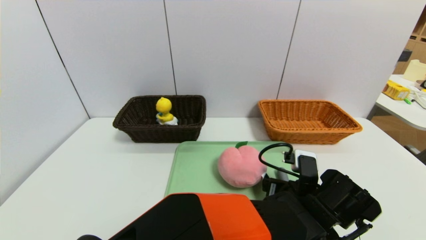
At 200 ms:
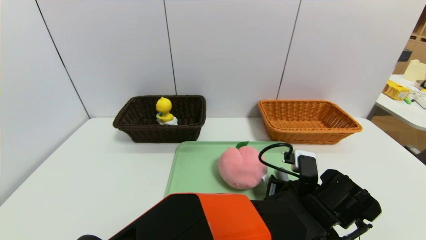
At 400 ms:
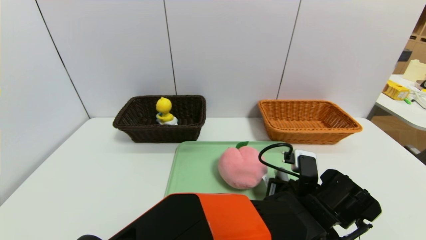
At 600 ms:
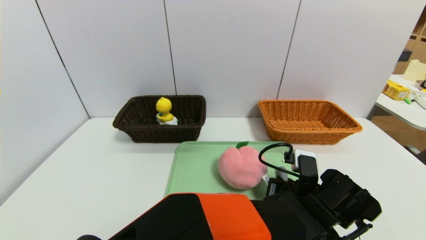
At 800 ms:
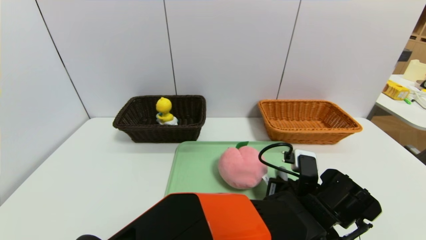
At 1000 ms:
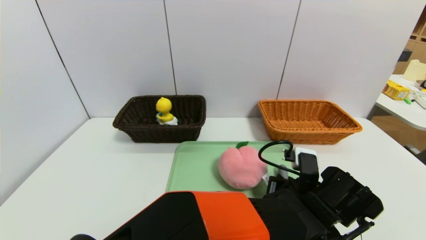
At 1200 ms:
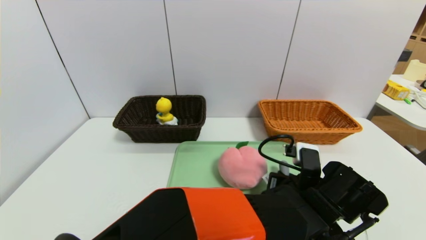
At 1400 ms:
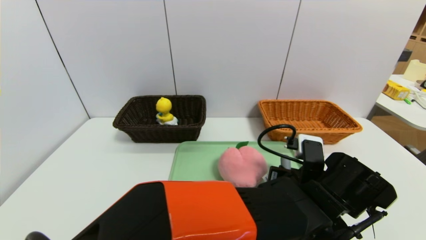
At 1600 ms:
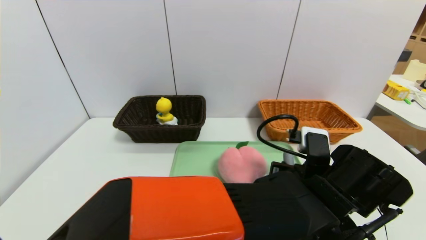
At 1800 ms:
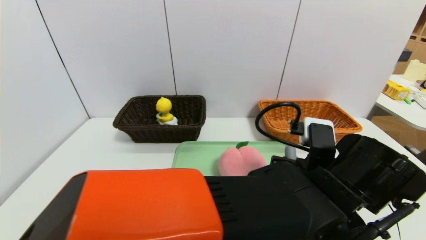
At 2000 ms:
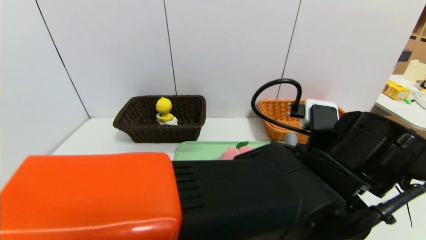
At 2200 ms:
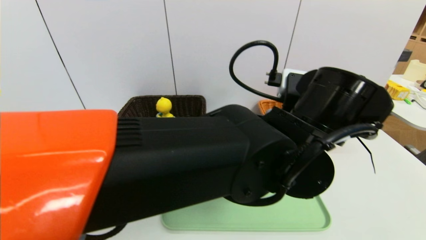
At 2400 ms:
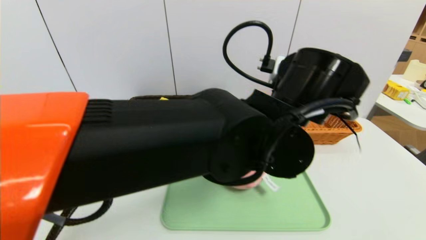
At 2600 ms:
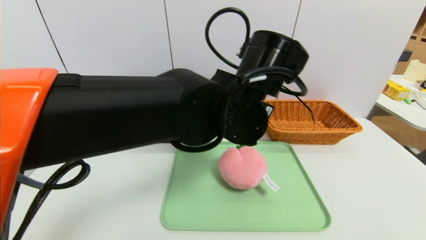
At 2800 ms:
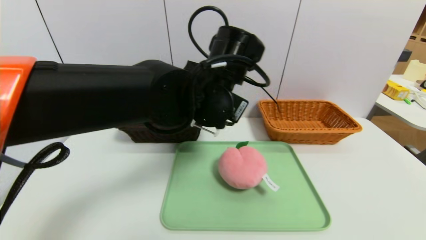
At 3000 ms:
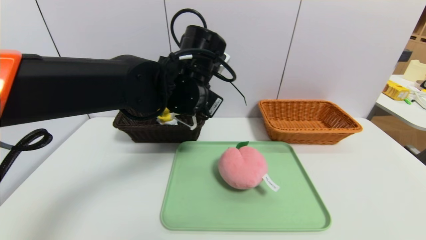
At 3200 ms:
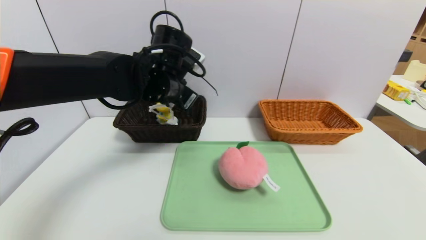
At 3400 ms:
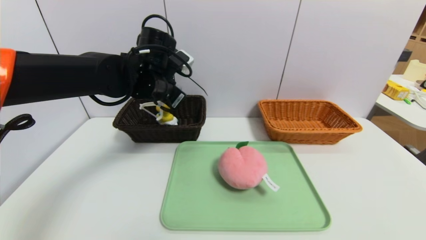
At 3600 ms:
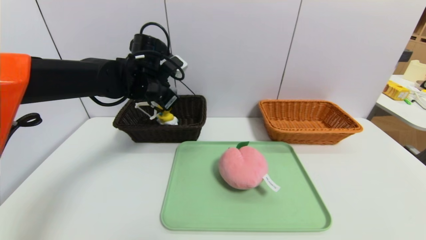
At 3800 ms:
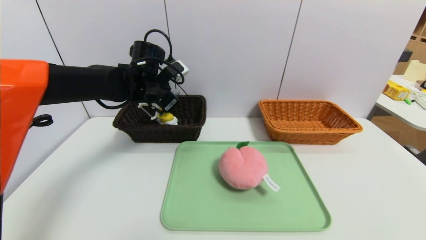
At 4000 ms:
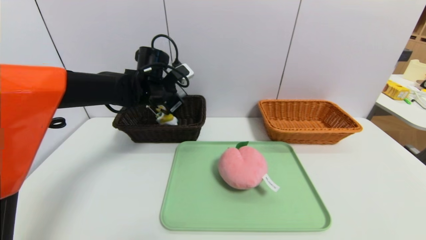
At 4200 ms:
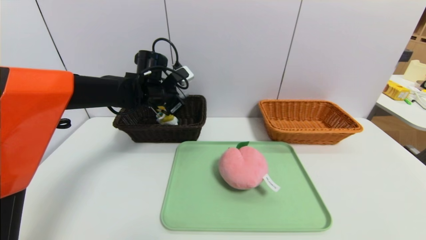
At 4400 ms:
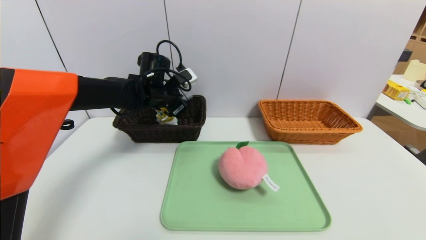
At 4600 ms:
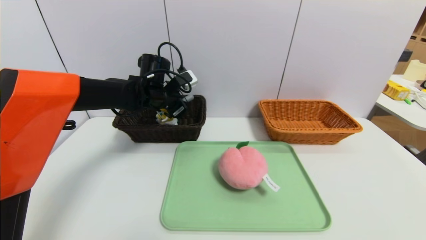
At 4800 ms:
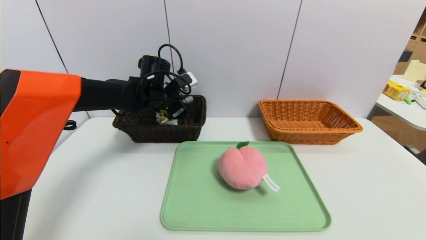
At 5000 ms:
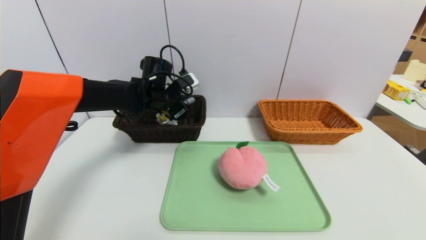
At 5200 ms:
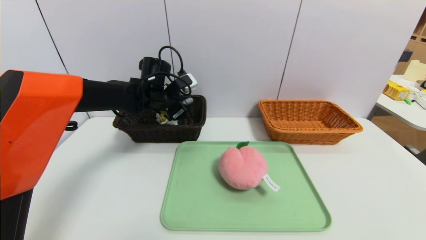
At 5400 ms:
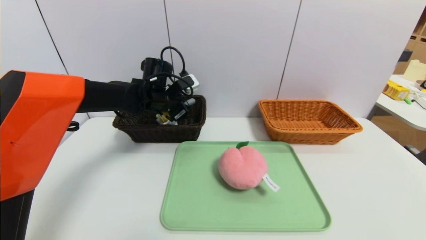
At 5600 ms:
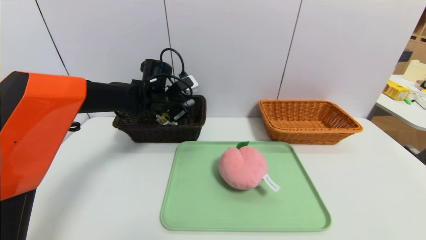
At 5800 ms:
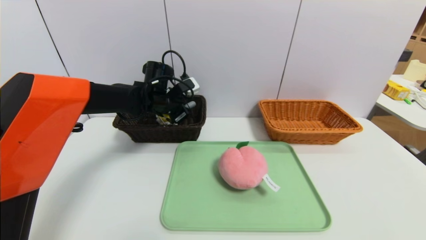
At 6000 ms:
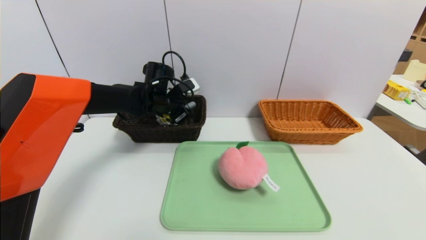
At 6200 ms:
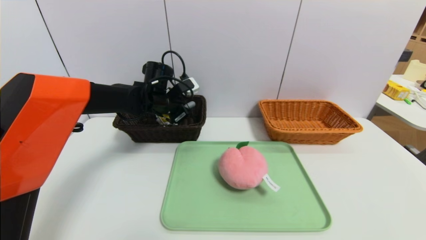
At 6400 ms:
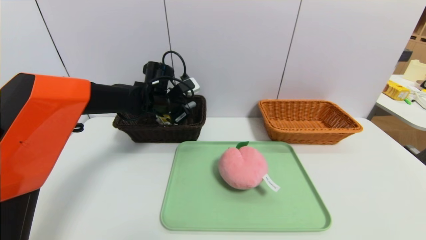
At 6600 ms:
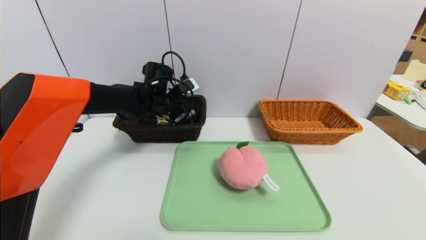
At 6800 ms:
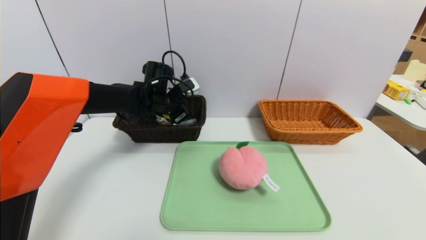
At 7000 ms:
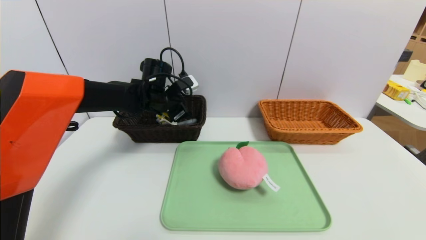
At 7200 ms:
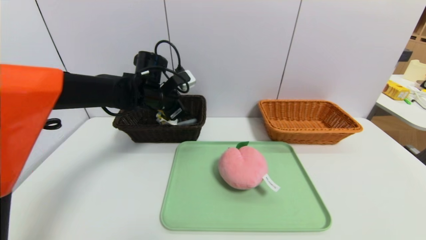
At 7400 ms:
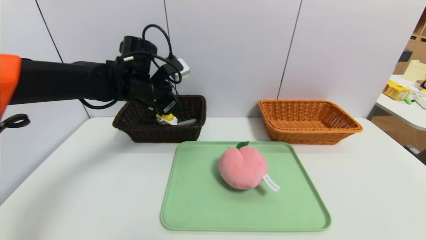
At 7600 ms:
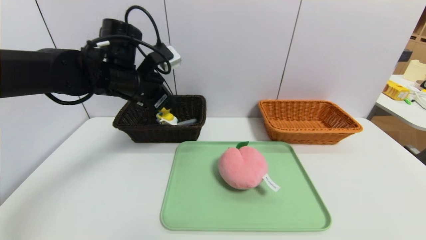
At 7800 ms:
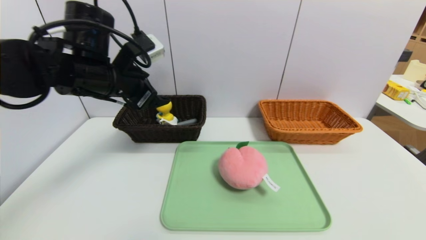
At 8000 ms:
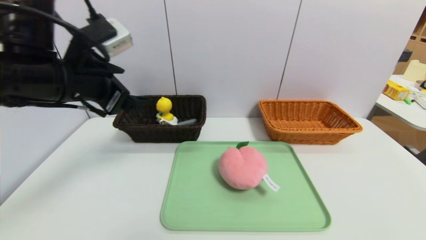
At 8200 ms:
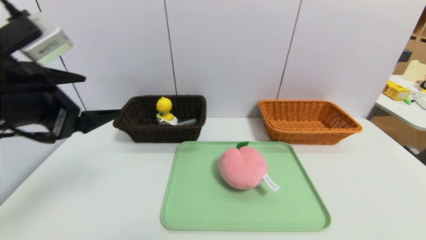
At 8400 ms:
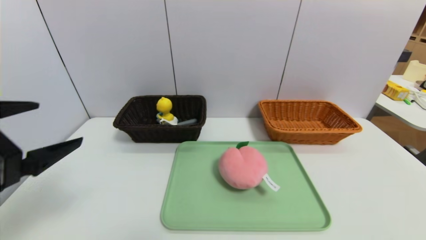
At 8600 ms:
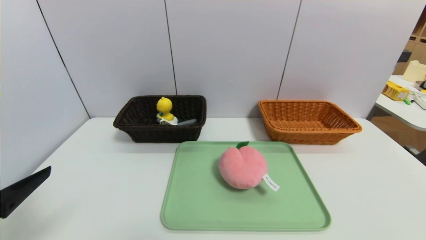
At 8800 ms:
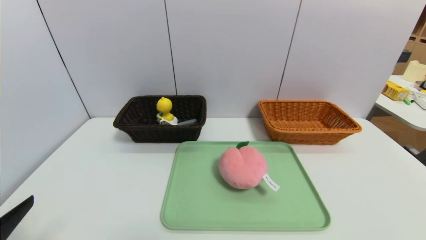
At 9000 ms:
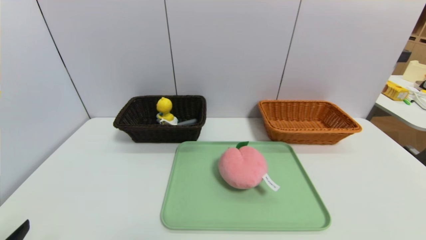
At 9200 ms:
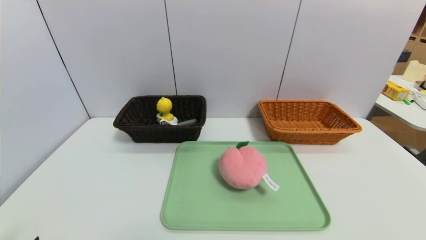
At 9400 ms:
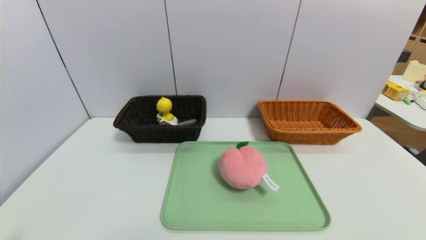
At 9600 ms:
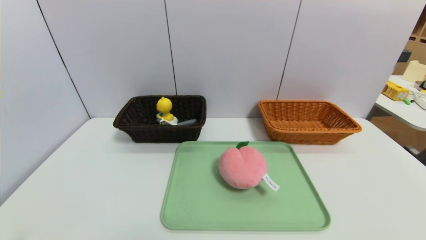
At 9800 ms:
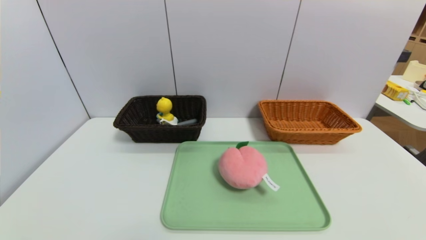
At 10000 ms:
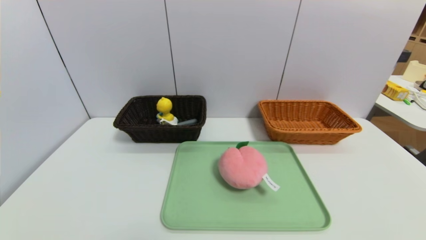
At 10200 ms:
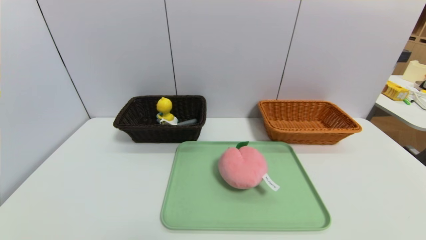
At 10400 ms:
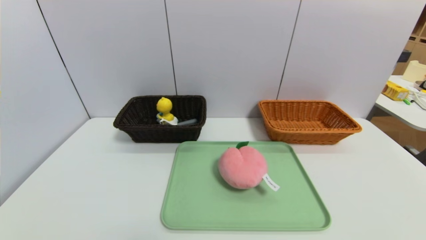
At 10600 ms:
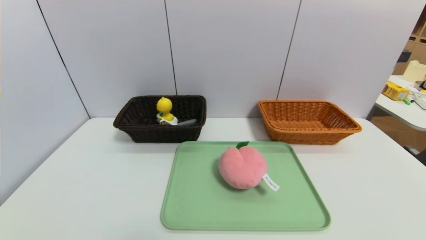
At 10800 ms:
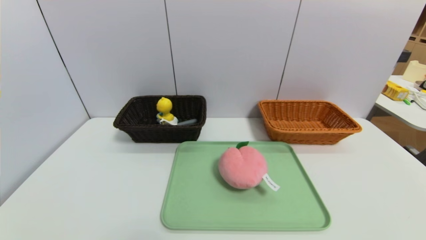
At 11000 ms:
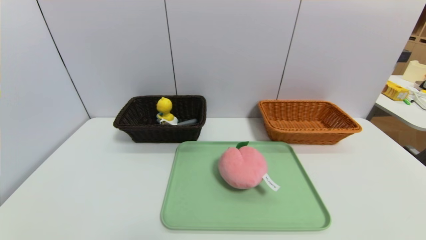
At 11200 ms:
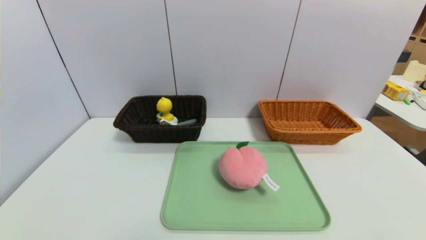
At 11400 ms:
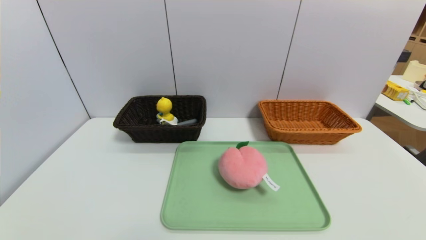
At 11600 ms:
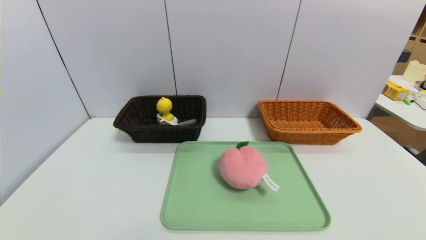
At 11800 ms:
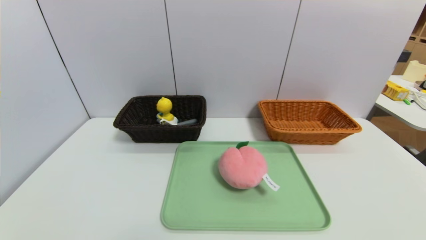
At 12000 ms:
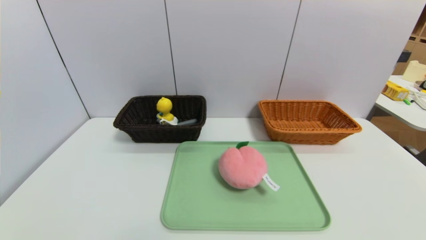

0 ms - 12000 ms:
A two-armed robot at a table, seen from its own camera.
Task of the whole recording: place the food in the right basket with the right gripper, and place the non food items in the left basket with the left gripper.
Step, 0 ms - 7000 ms: Grasp the peeler and put it in the left basket.
0 ms - 1600 ms: The left gripper is displaced upward by approximately 5 cm, and closes its fingers.
1600 ms - 3000 ms: The left gripper heads to the left, forward and upward, covering approximately 25 cm.
3000 ms - 4400 ms: The left gripper goes approximately 15 cm forward, to the left and downward.
4400 ms - 6000 ms: The grippers make only small movements.
6000 ms - 7600 ms: The left gripper moves backward and upward, about 15 cm, and opens.
7600 ms - 9000 ms: The left gripper shifts about 35 cm backward.

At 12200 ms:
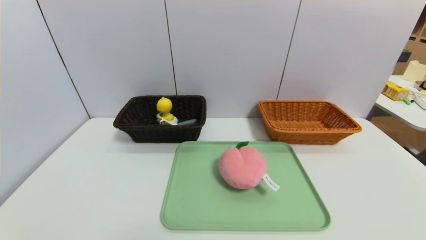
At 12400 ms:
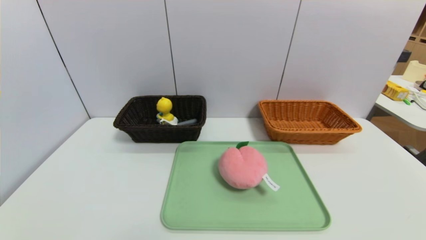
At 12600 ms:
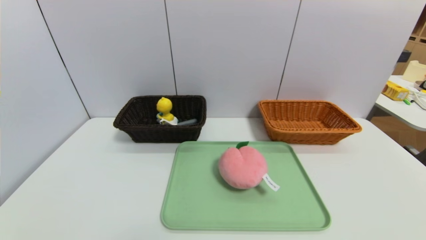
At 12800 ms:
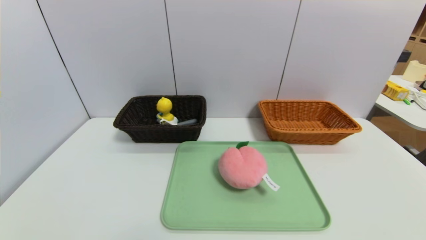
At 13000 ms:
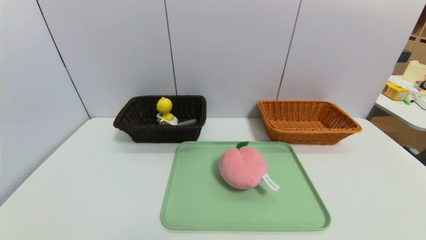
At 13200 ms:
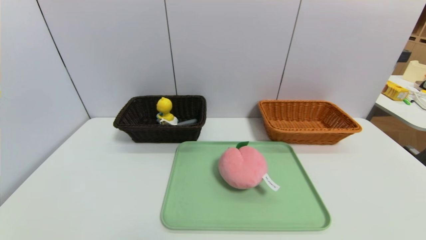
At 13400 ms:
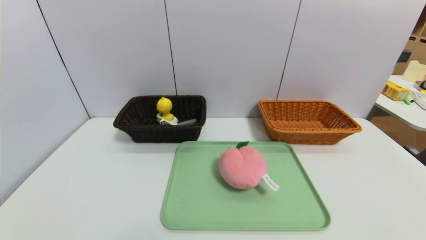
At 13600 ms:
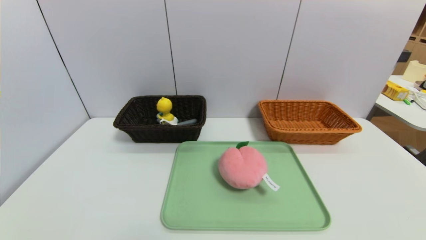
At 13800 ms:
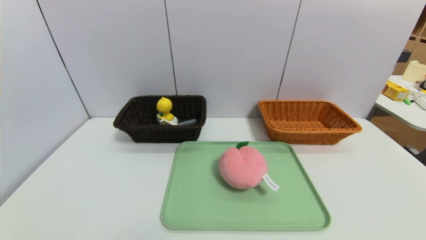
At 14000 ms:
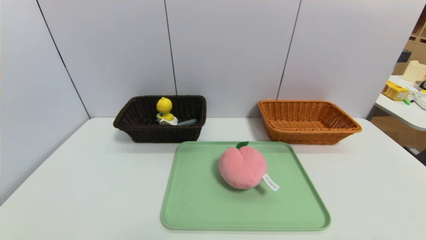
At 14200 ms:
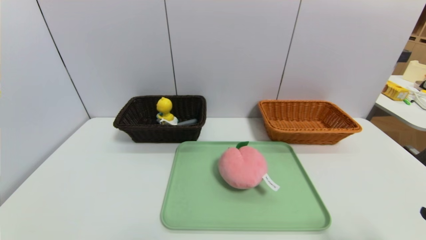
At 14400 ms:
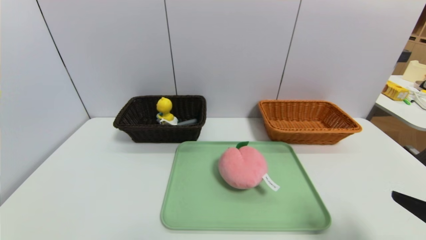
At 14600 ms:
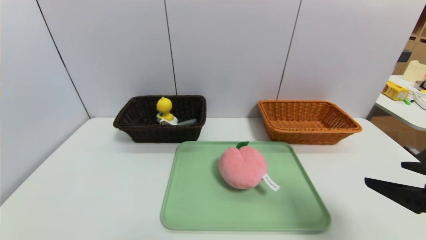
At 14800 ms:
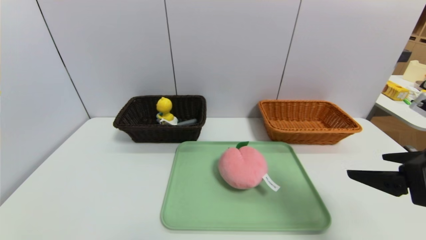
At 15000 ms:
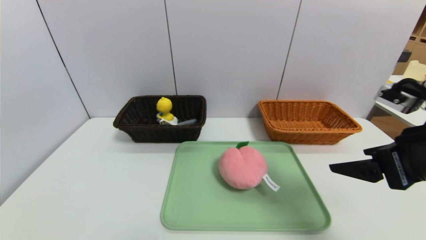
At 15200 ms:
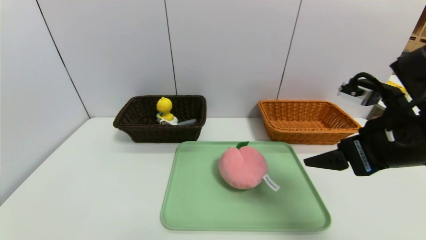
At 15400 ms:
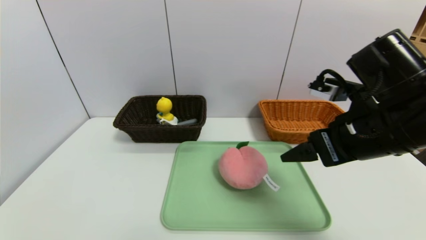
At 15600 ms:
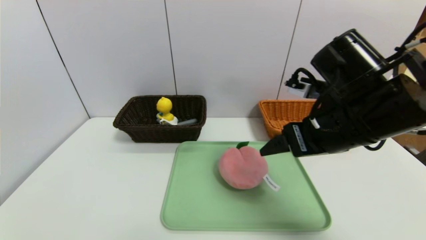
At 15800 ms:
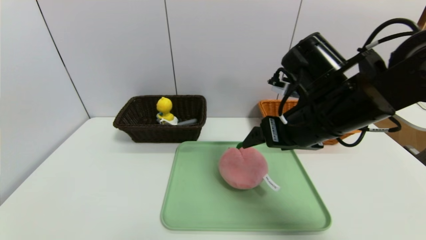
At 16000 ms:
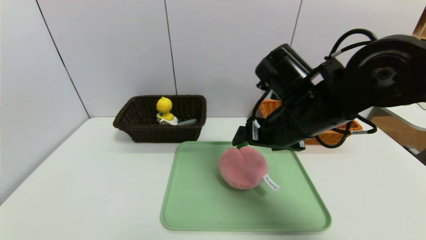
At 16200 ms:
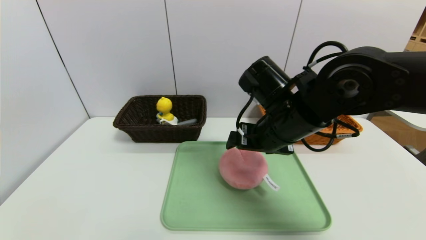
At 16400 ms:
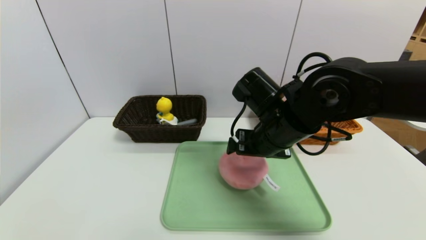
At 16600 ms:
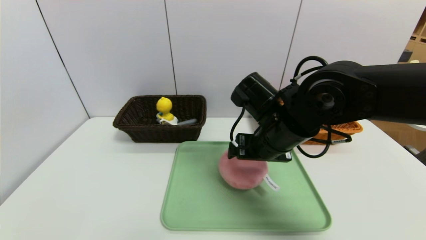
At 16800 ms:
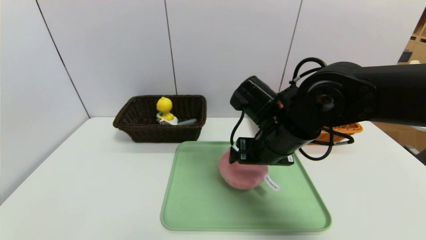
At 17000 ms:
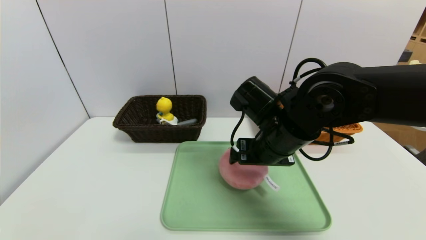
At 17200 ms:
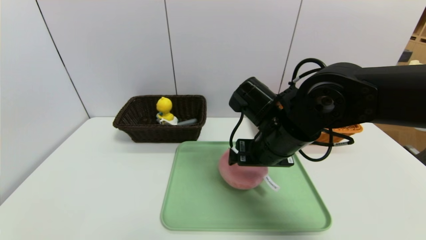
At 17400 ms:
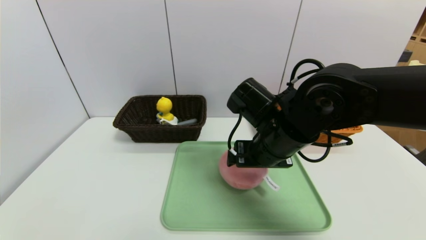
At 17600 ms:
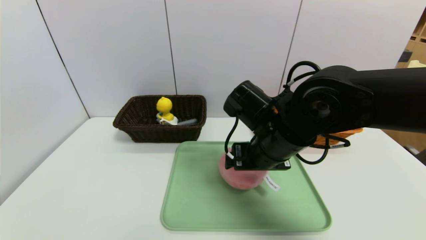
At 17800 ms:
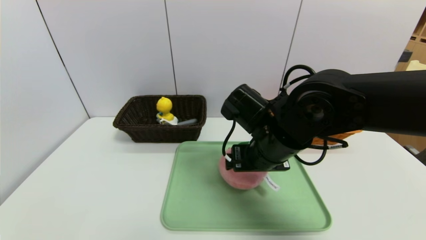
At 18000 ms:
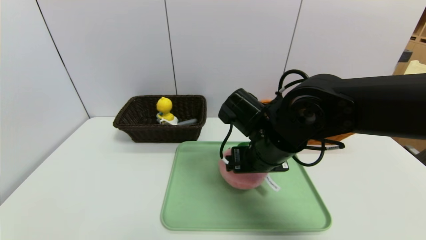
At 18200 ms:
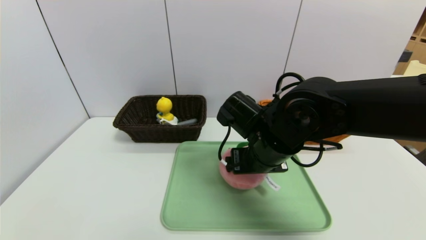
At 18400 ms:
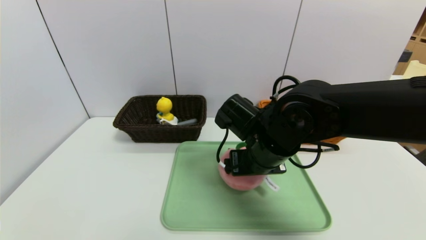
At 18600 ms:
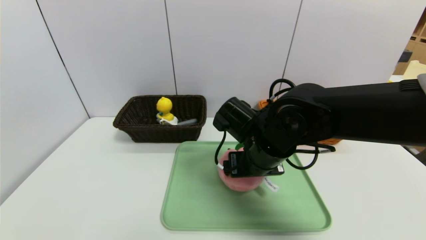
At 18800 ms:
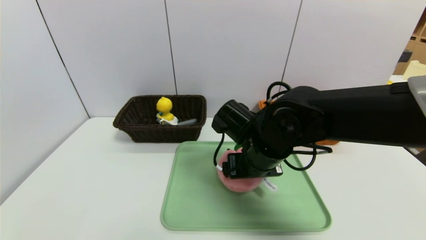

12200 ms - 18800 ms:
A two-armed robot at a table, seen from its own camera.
Task of the whole recording: place the food in the right basket with the right gripper, and place the non food items in the left basket with the left gripper.
13800 ms - 15400 ms: The right gripper shifts approximately 30 cm forward, to the left and upward.
15400 ms - 17200 ms: The right gripper moves to the left and downward, some 10 cm.
17200 ms - 18800 ms: There are only small adjustments of the grippers.
